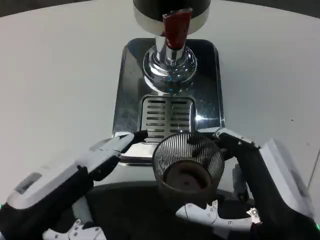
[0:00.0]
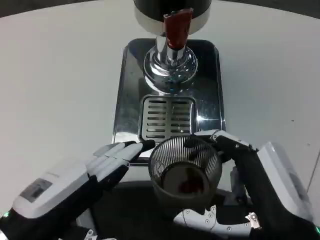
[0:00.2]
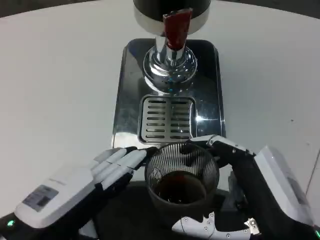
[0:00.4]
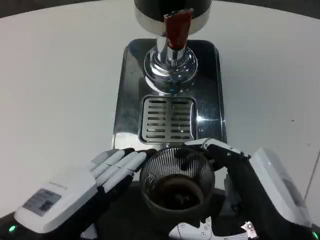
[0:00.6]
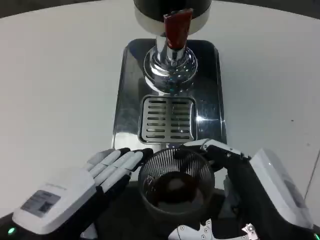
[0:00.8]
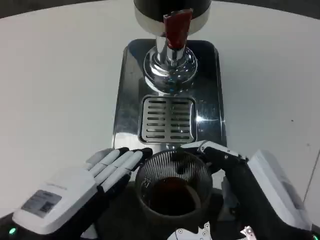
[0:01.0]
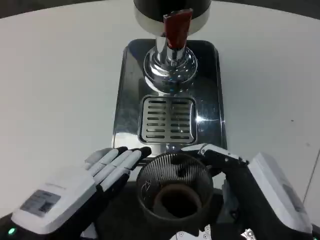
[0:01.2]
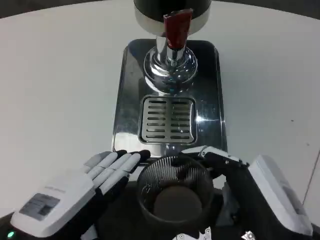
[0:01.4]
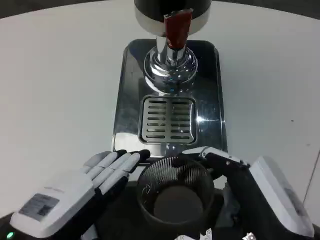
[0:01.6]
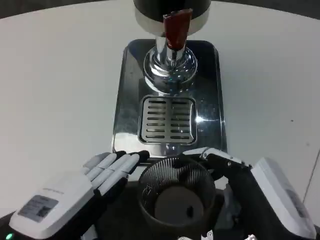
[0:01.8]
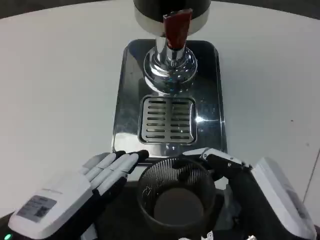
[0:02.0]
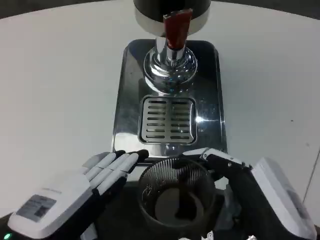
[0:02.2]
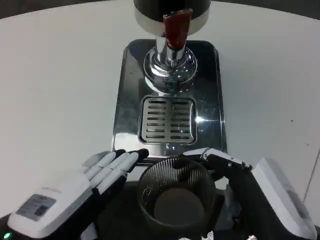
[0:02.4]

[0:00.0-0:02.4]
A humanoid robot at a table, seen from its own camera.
Task of the whole recording: Grasp the cup under the faucet to collect the drink, then remove the cup.
0:01.2 to 0:02.4: Neither hand changes place.

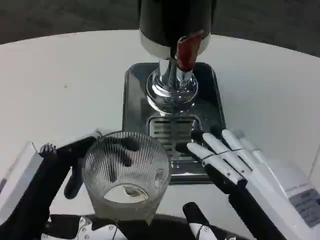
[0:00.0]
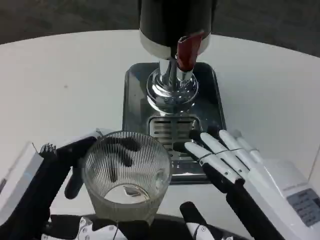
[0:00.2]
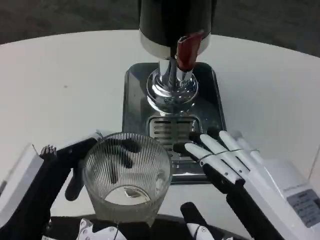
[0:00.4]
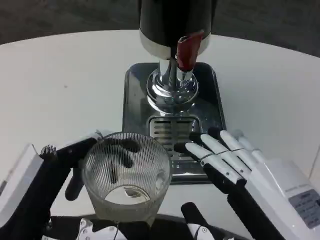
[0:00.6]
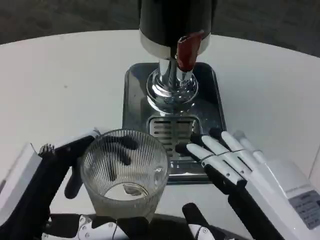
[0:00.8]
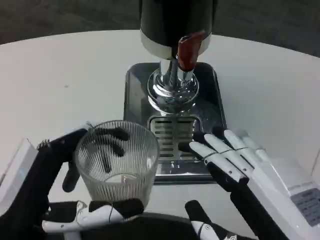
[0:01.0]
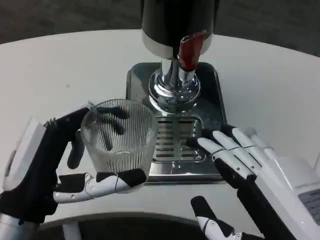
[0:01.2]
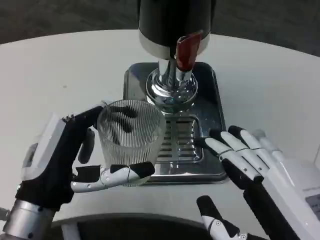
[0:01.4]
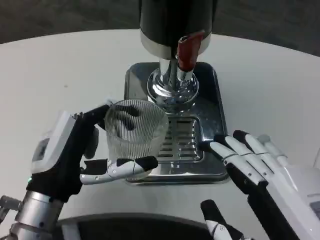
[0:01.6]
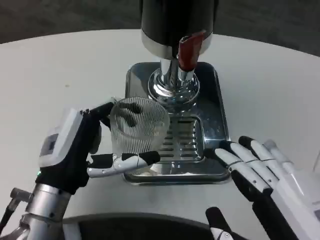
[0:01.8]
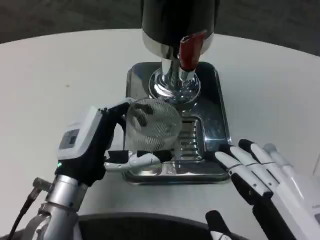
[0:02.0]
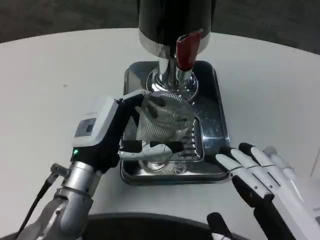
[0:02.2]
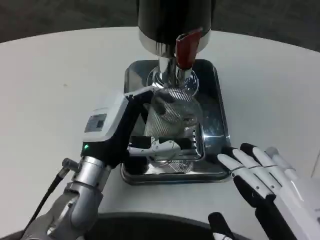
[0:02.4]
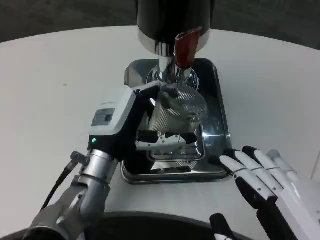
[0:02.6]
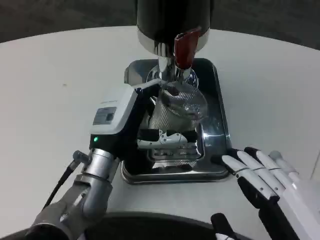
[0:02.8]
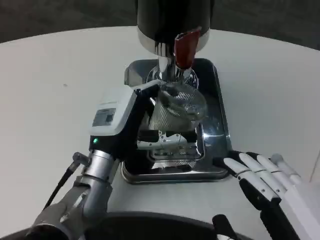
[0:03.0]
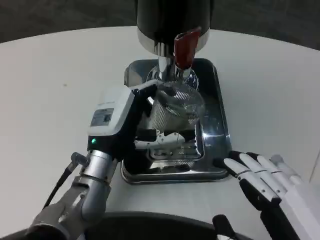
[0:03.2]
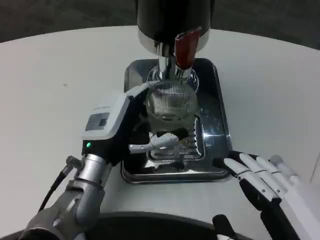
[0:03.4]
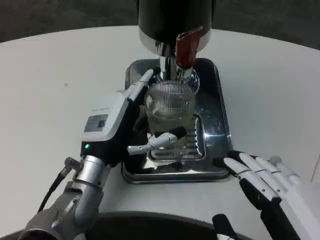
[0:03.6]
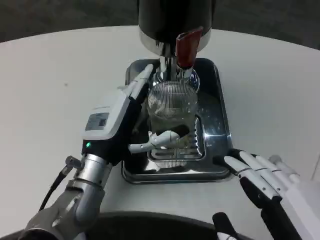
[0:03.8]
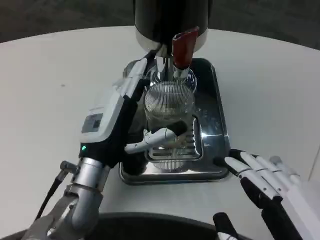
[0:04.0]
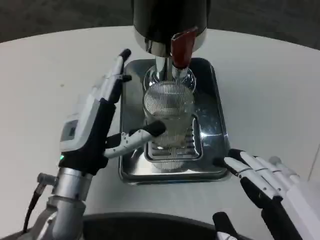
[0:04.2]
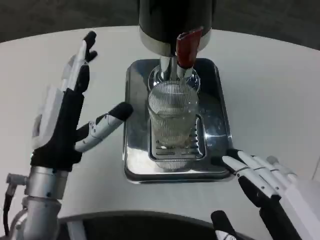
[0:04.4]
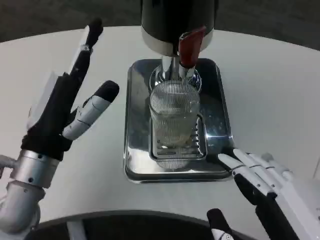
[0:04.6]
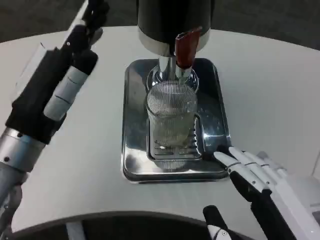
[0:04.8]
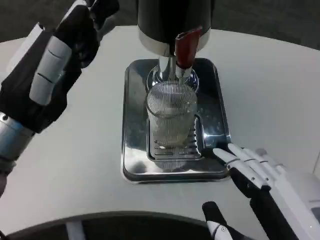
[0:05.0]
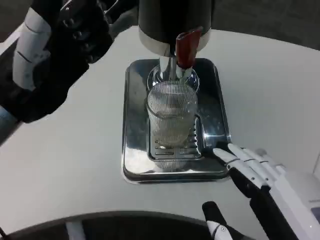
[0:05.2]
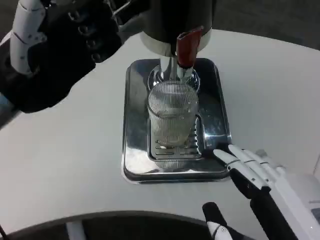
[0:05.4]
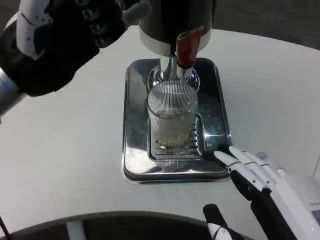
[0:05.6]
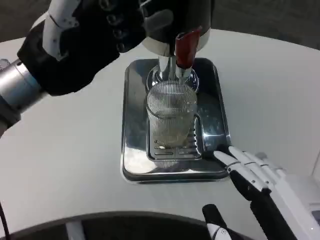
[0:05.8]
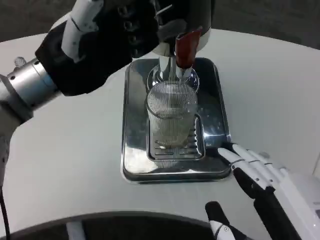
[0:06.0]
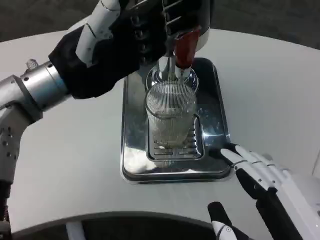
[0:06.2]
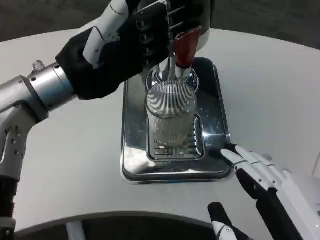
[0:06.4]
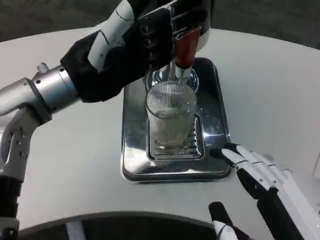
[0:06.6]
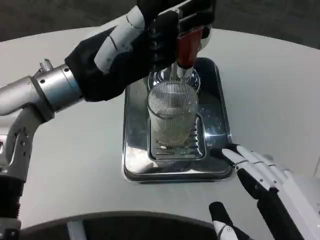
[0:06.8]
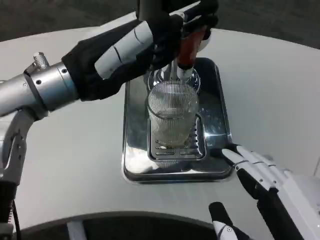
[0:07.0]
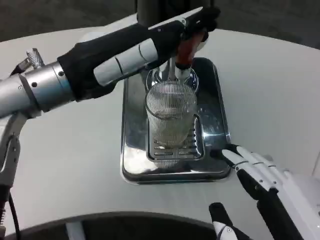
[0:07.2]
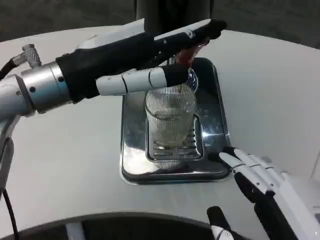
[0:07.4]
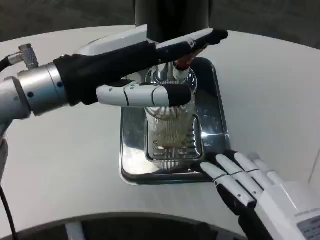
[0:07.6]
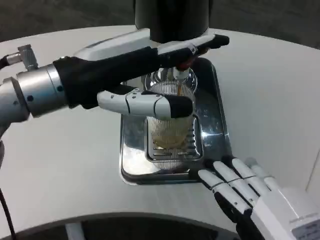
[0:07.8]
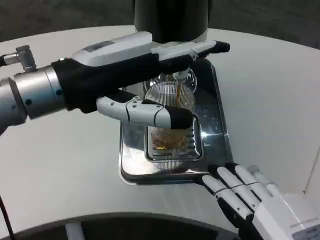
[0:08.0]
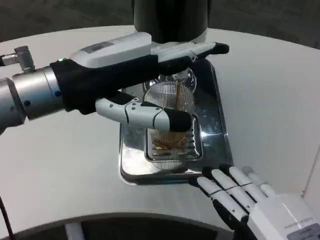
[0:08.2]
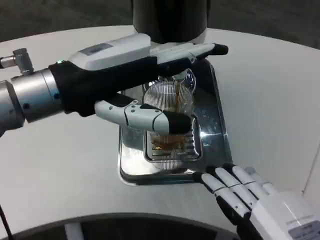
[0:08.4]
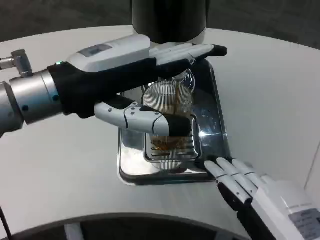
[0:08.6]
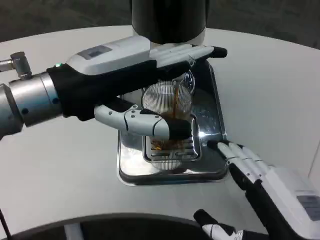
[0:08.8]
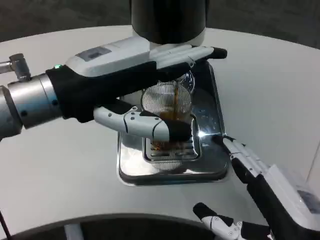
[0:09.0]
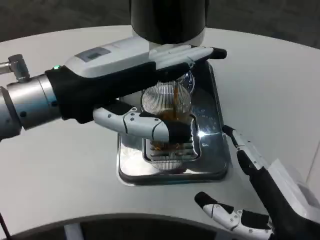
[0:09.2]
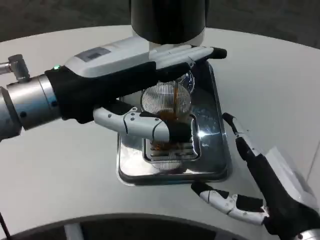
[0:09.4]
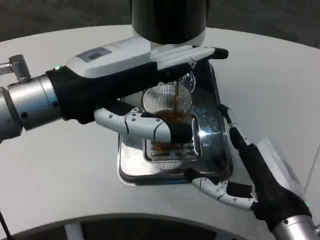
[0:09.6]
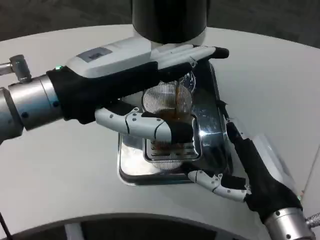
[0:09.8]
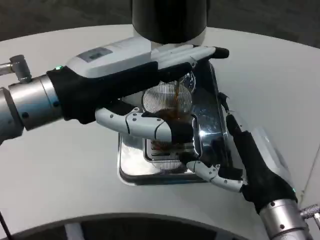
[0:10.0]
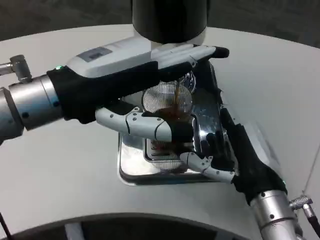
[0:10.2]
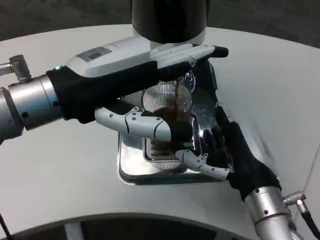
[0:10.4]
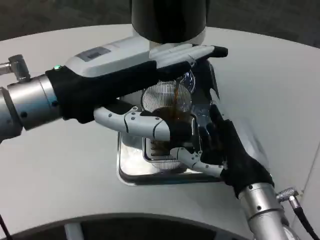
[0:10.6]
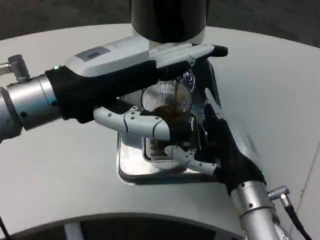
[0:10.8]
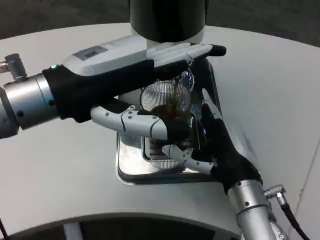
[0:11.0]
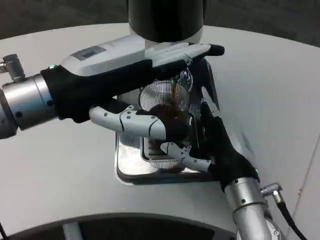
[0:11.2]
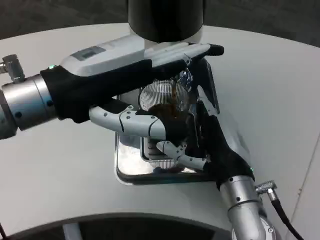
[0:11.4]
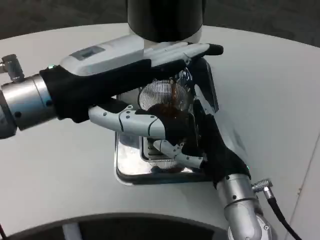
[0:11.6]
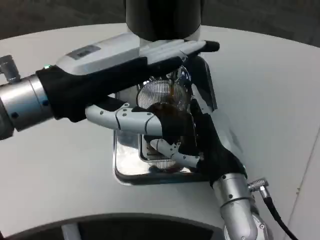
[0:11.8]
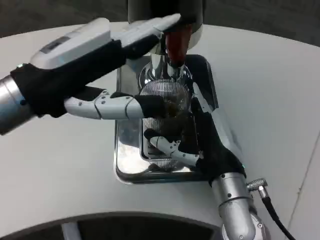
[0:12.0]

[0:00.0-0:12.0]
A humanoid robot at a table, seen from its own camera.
Task of the whole recording: Grasp the cup under the faucet to collect the drink, then remove the cup.
0:00.0 to 0:01.6: The left hand moves forward, some 10 cm.
0:01.6 to 0:03.0: The left hand goes about 10 cm forward and to the right.
0:03.0 to 0:04.4: The left hand moves to the left and backward, approximately 5 cm.
0:04.4 to 0:06.0: The left hand shifts roughly 15 cm upward.
0:07.6 to 0:09.0: The right hand moves forward, about 5 cm.
0:09.0 to 0:10.4: The right hand shifts approximately 10 cm forward.
0:10.4 to 0:12.0: The right hand changes place by some 5 cm.

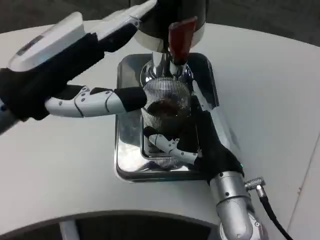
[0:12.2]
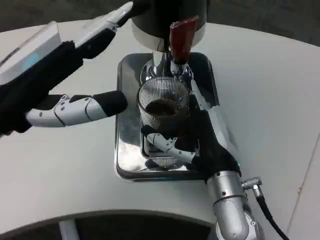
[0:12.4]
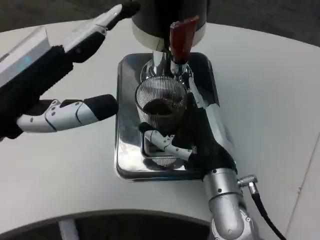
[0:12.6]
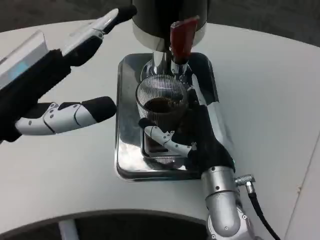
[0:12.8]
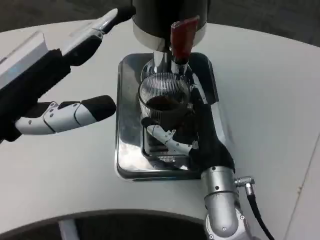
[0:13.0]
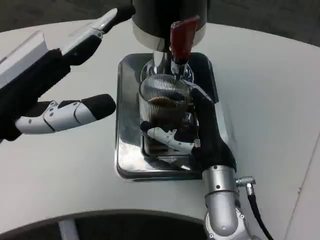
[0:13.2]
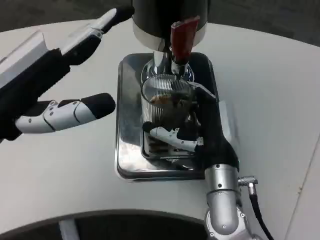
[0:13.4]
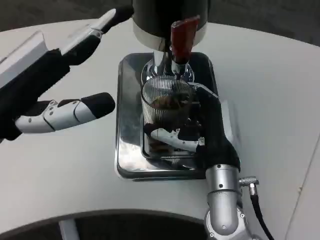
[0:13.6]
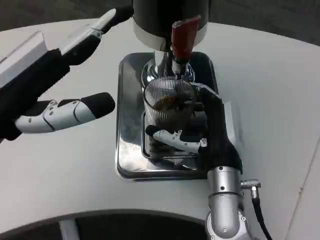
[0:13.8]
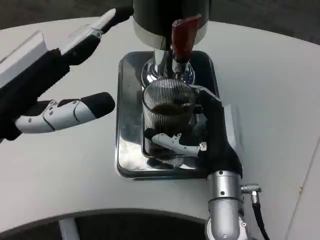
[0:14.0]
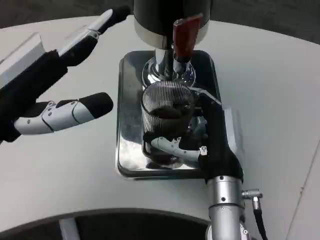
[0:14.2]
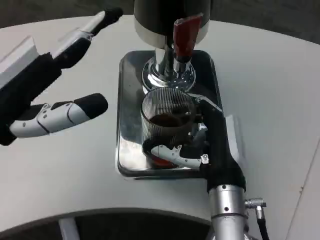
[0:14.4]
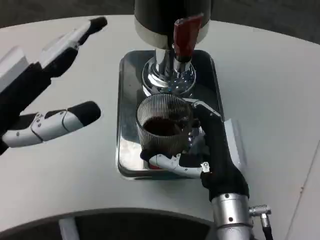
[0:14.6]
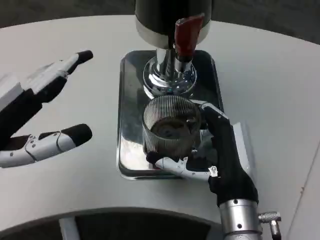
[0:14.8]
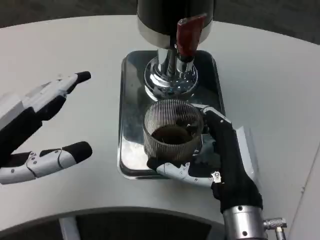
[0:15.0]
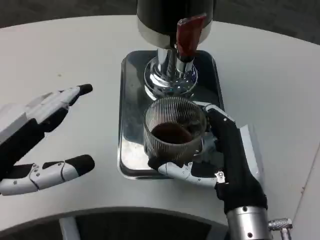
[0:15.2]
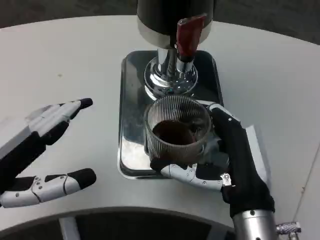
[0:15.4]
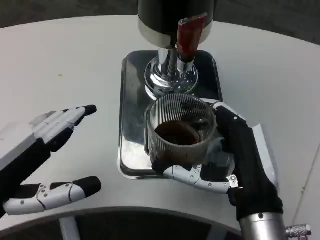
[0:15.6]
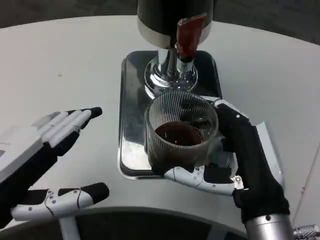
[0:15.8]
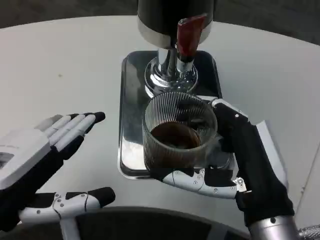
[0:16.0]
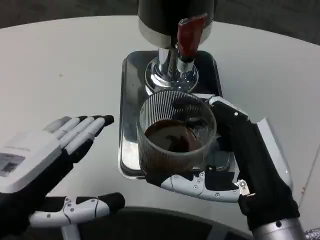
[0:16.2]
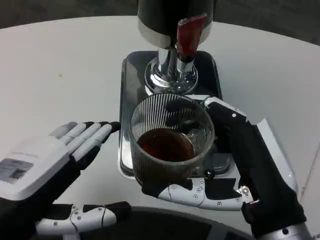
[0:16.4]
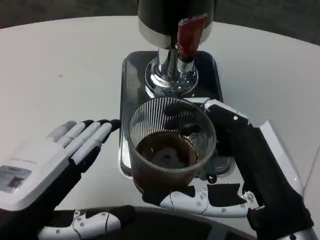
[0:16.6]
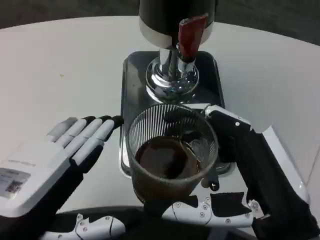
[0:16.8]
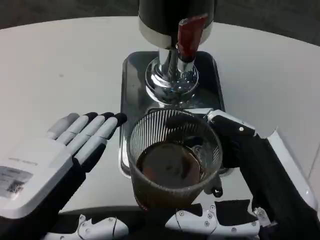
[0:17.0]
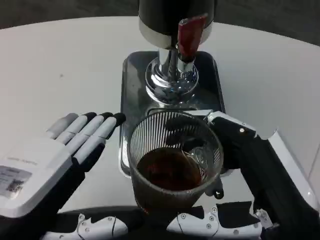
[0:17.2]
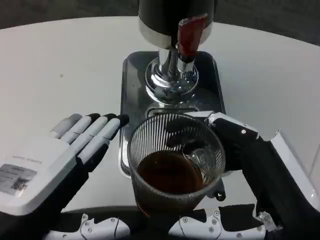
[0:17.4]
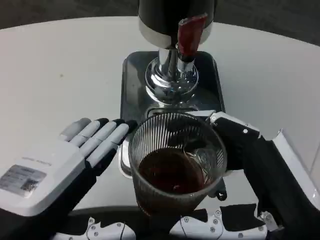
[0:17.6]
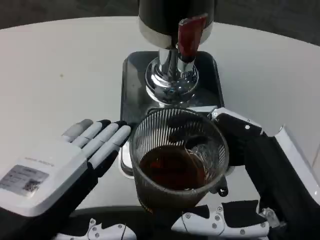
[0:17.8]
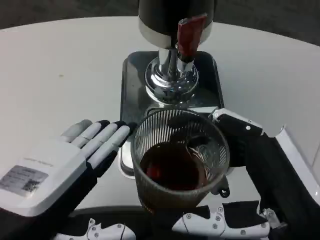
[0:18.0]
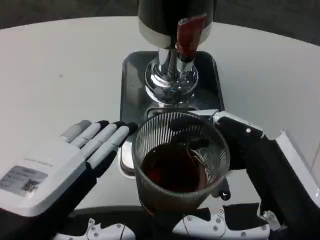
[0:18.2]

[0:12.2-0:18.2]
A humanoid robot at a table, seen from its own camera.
Task of the whole recording: Grasp the cup under the faucet to collect the drink, then remove the cup.
0:13.8 to 0:15.2: Both hands move backward, some 5 cm.
0:15.2 to 0:16.6: The right hand heads backward, covering some 5 cm. The left hand travels to the right by some 5 cm.

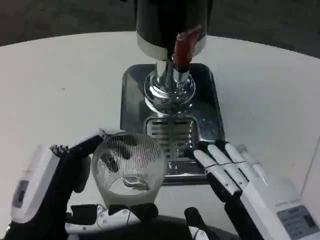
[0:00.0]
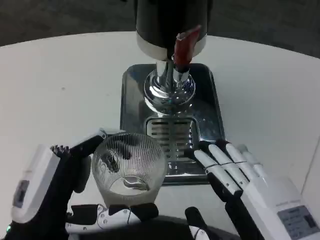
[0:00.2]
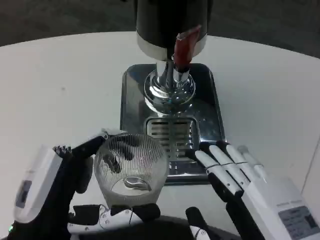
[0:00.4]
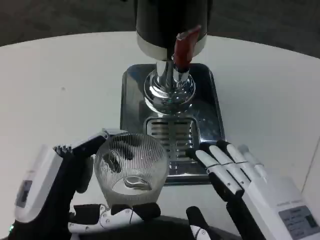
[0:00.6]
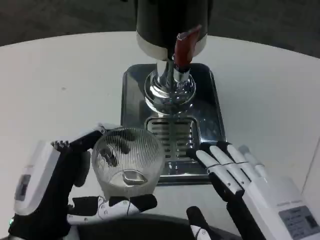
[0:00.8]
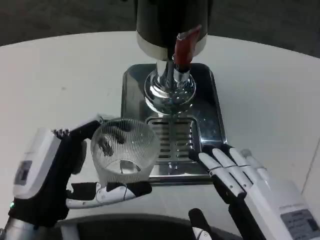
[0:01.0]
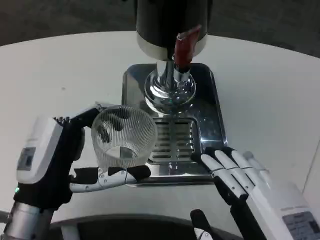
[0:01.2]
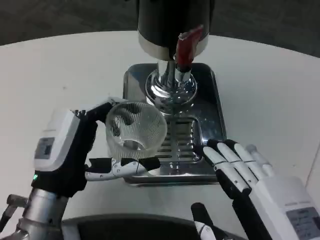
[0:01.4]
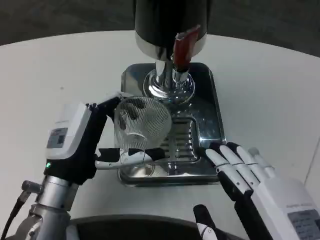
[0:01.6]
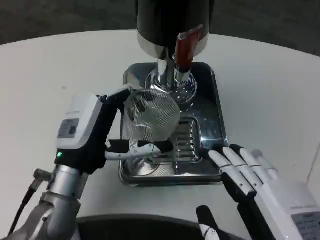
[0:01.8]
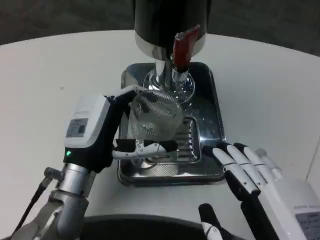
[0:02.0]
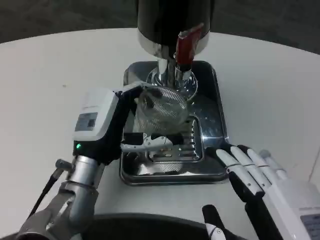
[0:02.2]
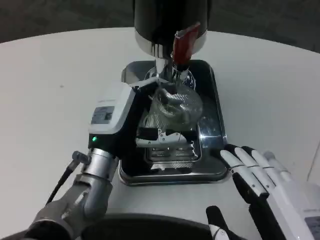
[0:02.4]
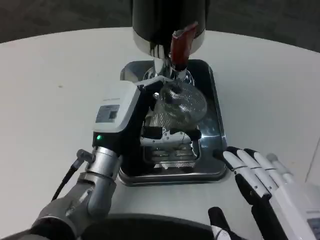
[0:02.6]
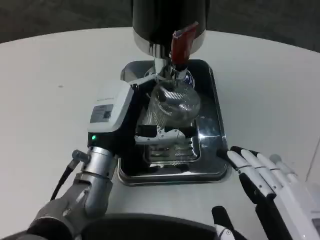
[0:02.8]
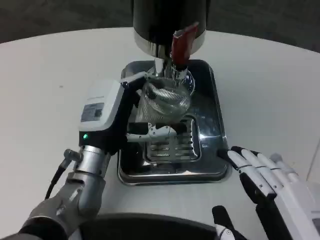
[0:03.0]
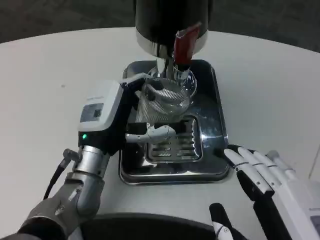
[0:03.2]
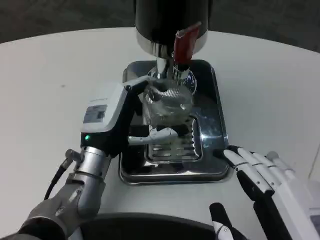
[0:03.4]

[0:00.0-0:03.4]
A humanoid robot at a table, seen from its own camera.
Task of the whole recording: Grasp the cup under the faucet to collect the drink, then remove the cup.
0:00.0 to 0:01.6: The left hand is displaced forward by some 10 cm.
0:01.6 to 0:03.4: The left hand travels forward by roughly 5 cm.
